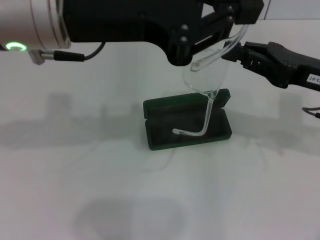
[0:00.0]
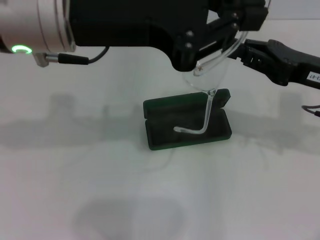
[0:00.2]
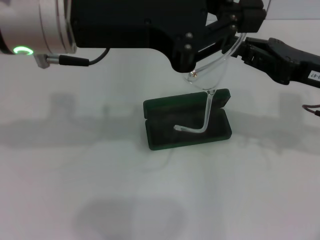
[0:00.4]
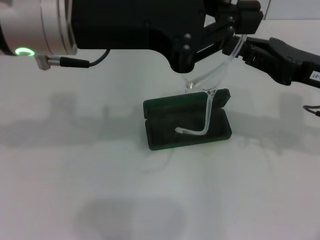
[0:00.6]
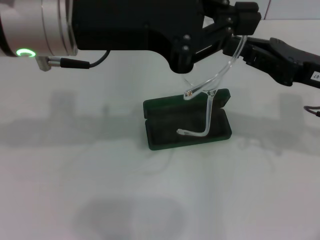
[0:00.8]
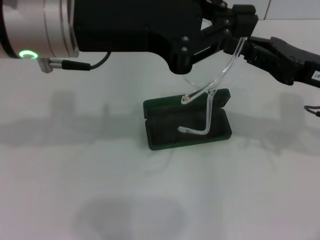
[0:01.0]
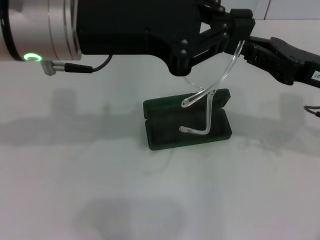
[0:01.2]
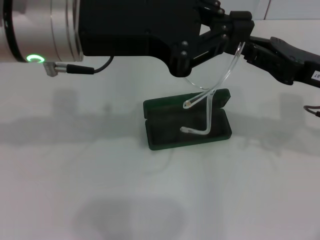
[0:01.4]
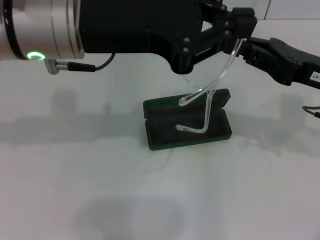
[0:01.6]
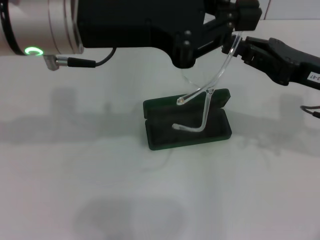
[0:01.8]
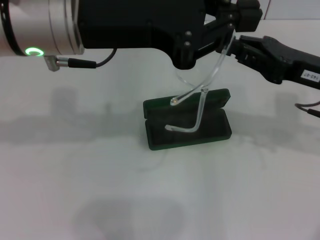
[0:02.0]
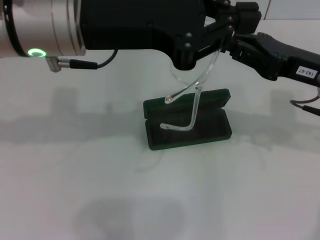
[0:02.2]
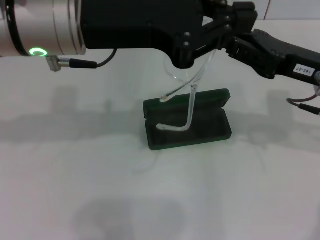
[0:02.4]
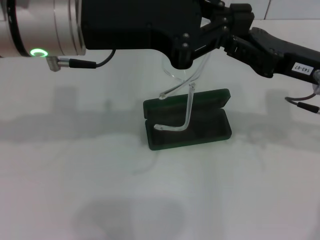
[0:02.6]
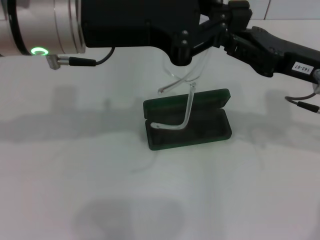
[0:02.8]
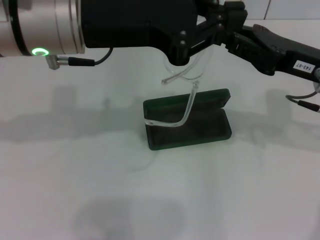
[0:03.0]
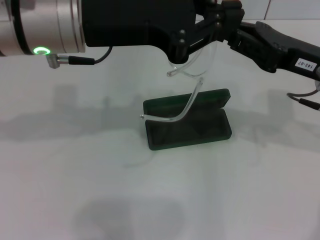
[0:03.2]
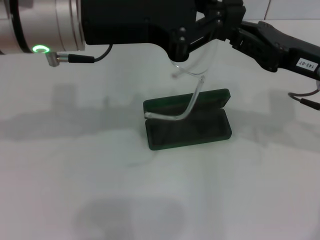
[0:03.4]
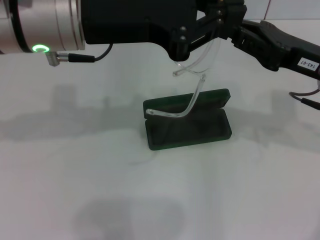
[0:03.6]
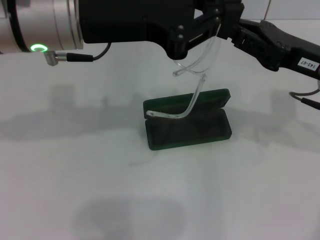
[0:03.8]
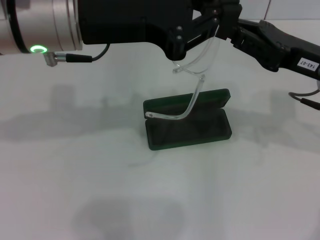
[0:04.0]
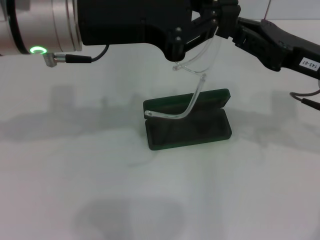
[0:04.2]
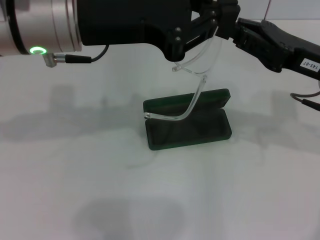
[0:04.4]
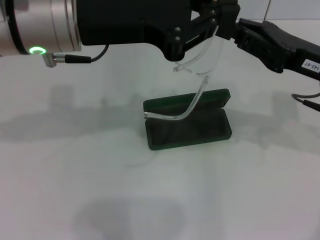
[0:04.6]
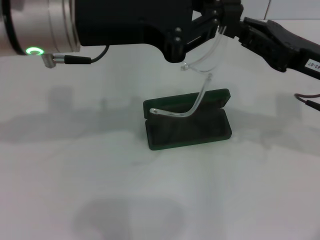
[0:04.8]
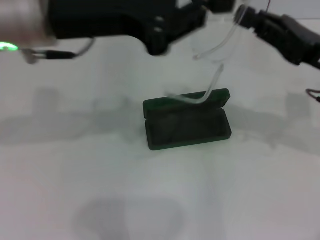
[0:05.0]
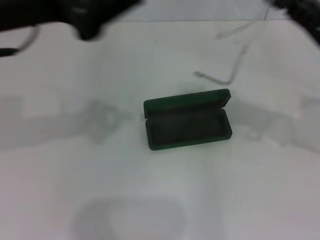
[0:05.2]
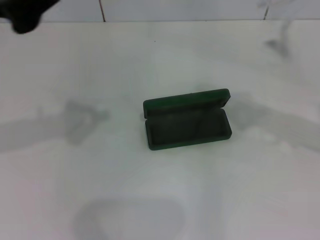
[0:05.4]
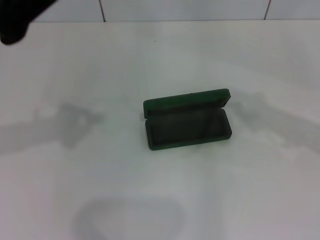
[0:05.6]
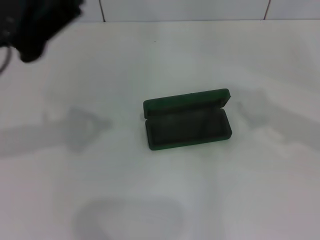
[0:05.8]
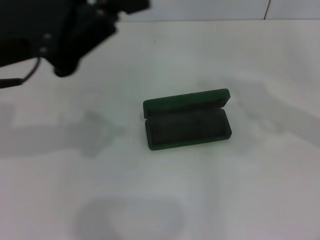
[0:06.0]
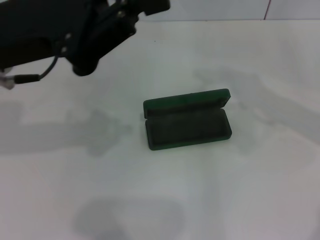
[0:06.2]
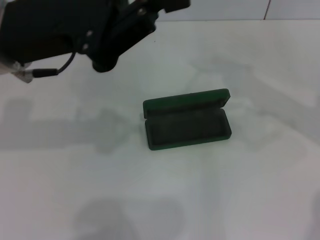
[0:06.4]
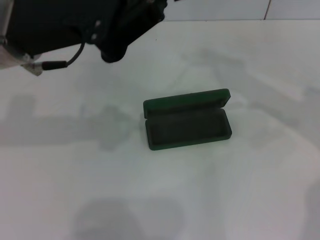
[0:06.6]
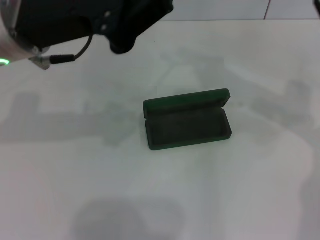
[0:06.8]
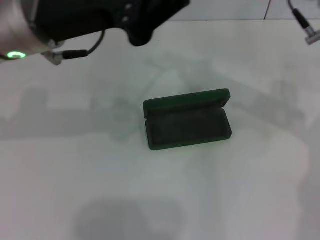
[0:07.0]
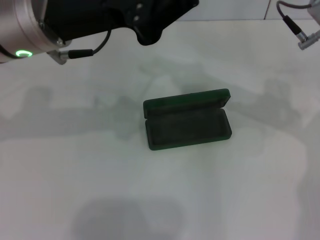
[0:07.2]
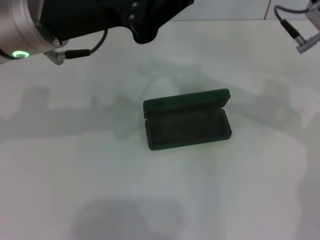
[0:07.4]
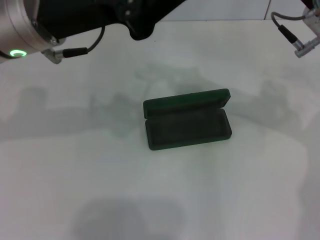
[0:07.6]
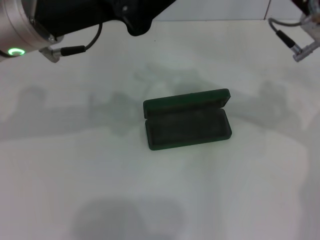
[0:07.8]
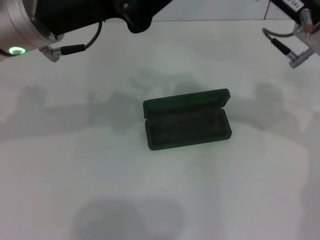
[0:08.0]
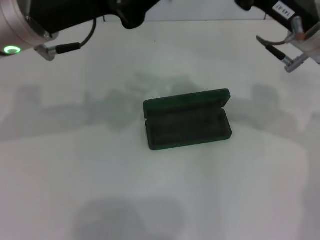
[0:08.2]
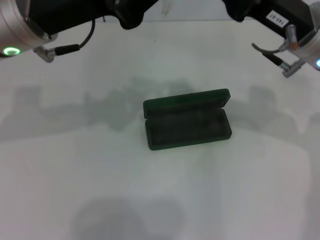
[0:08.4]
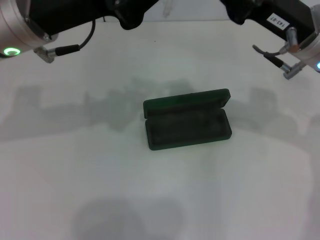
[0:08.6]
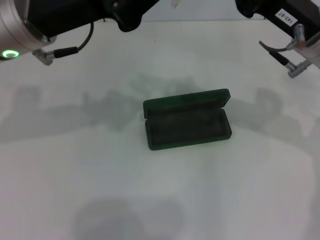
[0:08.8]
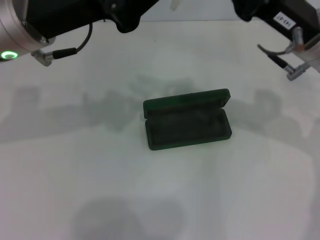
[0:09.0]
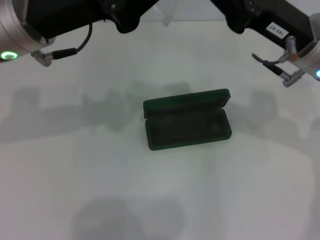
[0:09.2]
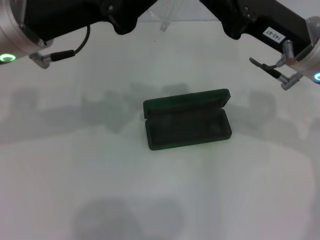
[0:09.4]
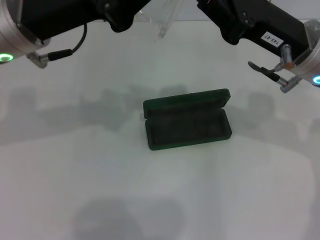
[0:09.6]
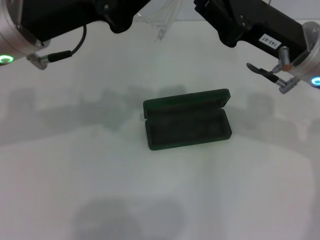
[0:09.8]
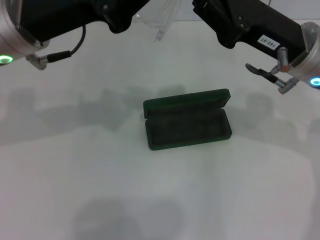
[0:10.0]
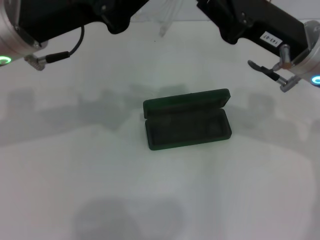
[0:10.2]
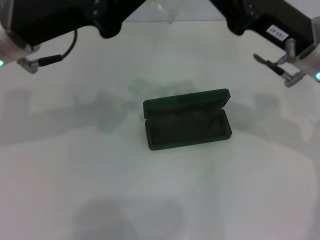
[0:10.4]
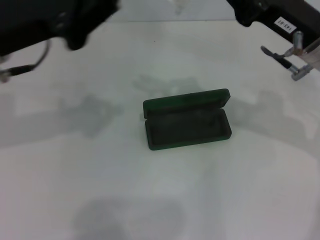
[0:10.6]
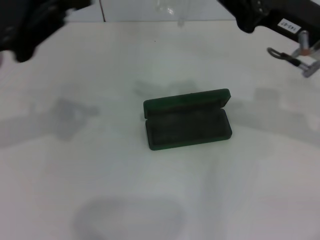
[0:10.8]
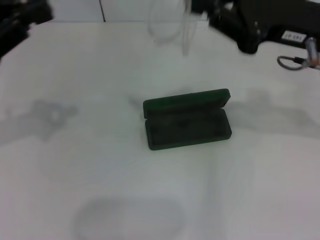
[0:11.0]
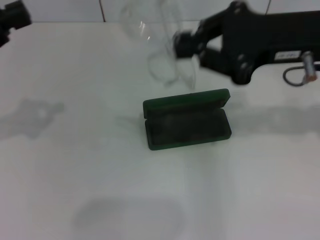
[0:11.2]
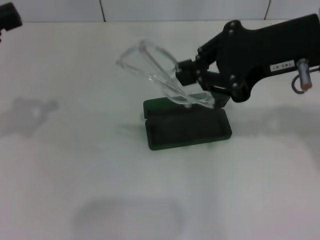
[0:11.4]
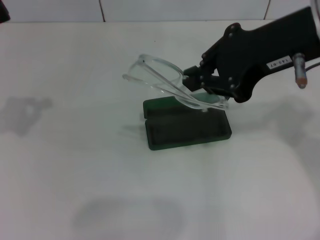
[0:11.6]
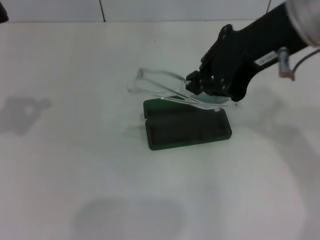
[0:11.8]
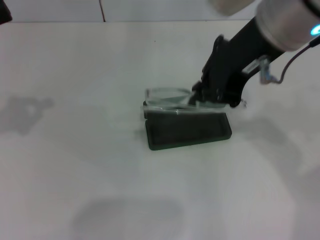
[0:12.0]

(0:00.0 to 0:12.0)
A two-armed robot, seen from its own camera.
Step, 0:00.0 - 0:10.2: Fold the frame with your left hand.
0:00.0 - 0:03.0: The grippers make only small movements.
0:03.0 - 0:04.4: Both grippers stay about where they are.
0:04.4 - 0:06.0: The left gripper goes approximately 5 cm to the left. The right gripper shifts some 5 cm to the right.
0:06.0 - 0:07.6: The left gripper heads to the right, covering some 5 cm. Meanwhile the right gripper heads to the left, covering some 10 cm.
0:07.6 - 0:10.4: The grippers stay close to where they were, moving slightly.
0:10.4 - 0:12.0: The right gripper shifts about 15 cm upward and to the left. Meanwhile the left gripper goes some 15 cm to the left.

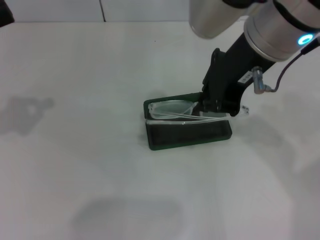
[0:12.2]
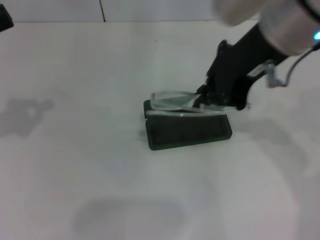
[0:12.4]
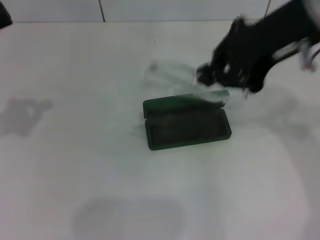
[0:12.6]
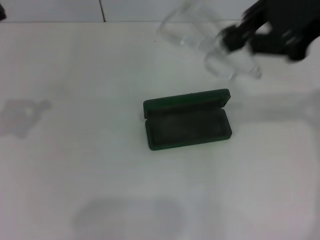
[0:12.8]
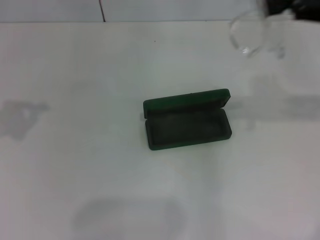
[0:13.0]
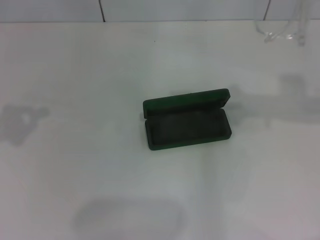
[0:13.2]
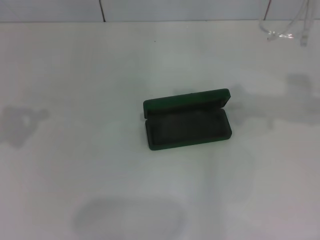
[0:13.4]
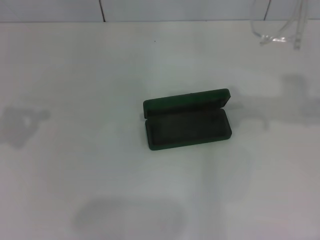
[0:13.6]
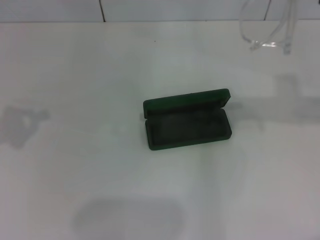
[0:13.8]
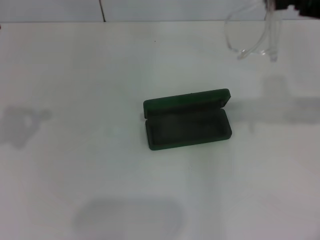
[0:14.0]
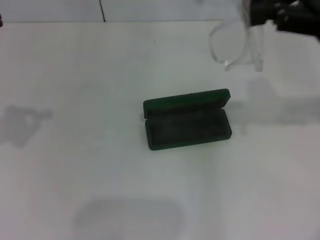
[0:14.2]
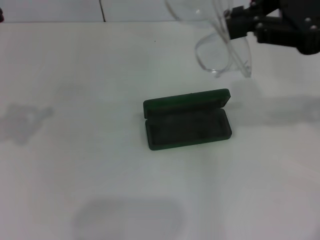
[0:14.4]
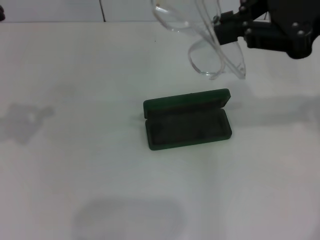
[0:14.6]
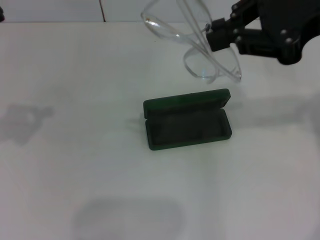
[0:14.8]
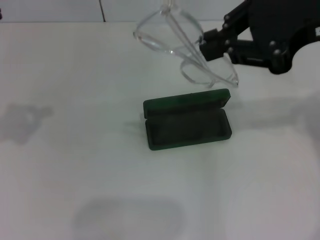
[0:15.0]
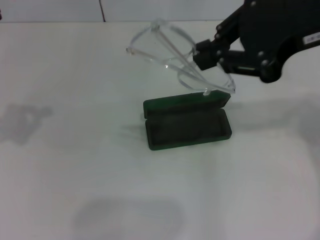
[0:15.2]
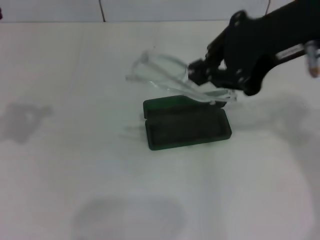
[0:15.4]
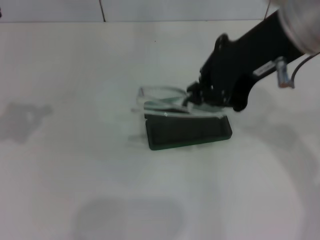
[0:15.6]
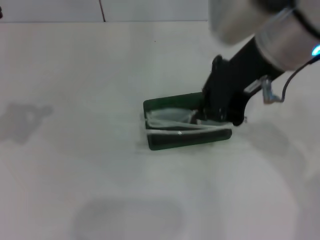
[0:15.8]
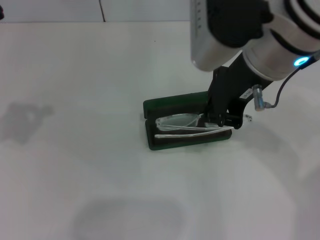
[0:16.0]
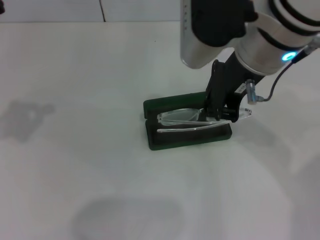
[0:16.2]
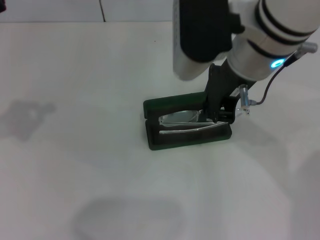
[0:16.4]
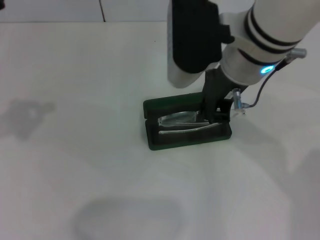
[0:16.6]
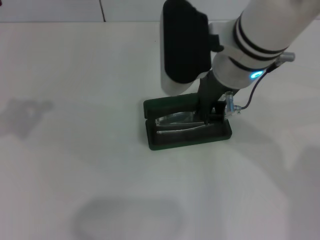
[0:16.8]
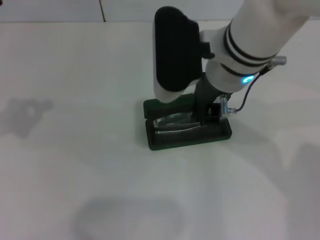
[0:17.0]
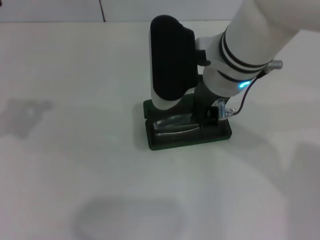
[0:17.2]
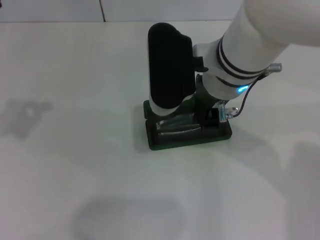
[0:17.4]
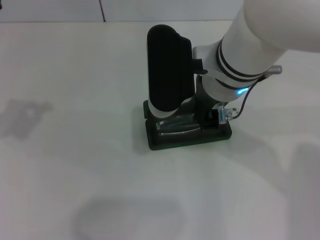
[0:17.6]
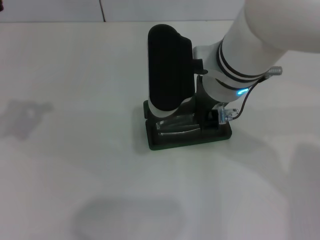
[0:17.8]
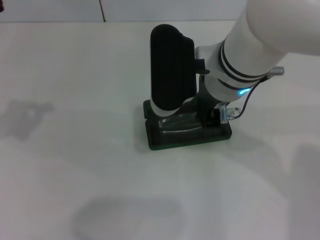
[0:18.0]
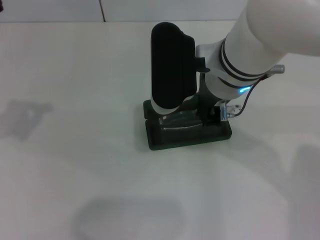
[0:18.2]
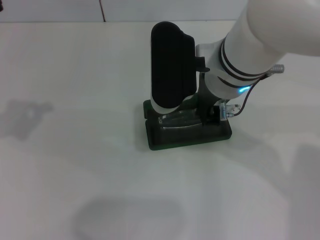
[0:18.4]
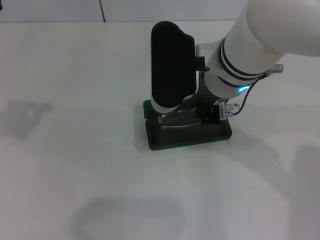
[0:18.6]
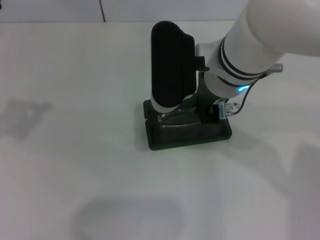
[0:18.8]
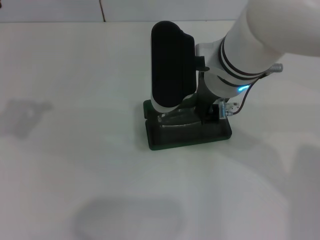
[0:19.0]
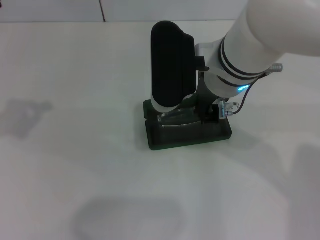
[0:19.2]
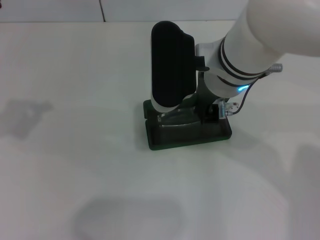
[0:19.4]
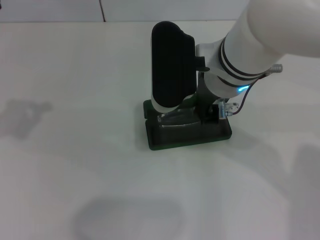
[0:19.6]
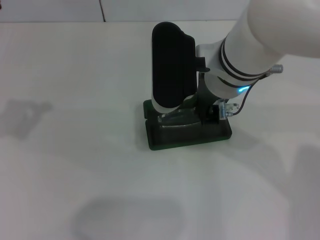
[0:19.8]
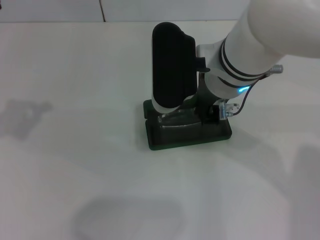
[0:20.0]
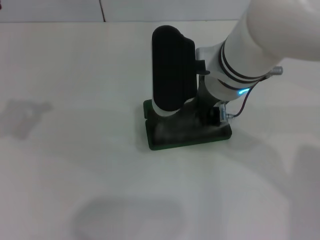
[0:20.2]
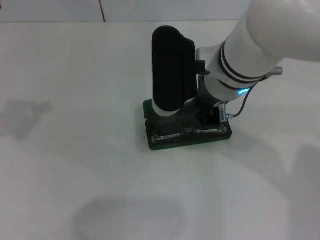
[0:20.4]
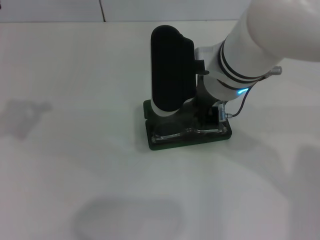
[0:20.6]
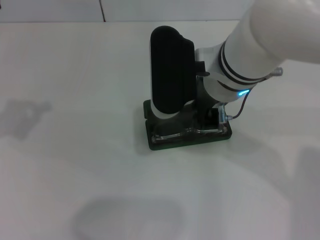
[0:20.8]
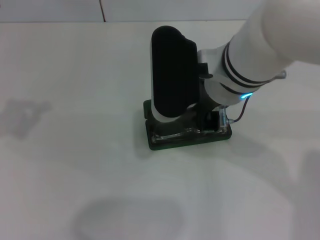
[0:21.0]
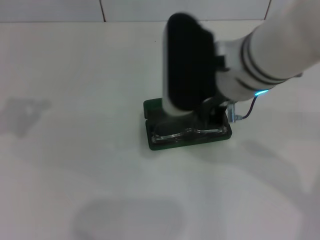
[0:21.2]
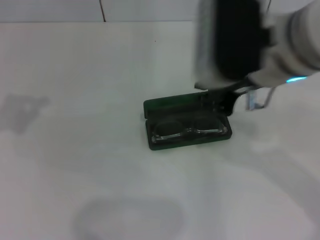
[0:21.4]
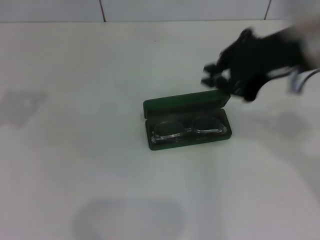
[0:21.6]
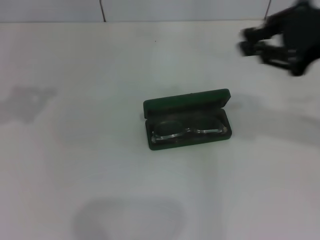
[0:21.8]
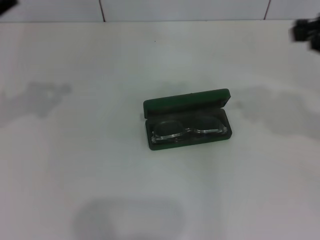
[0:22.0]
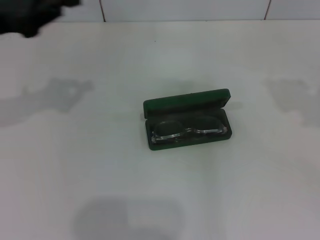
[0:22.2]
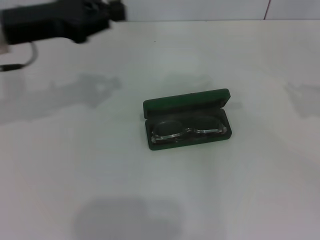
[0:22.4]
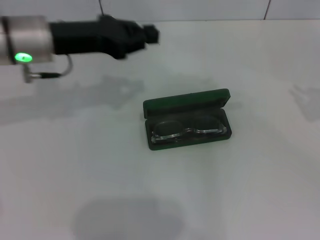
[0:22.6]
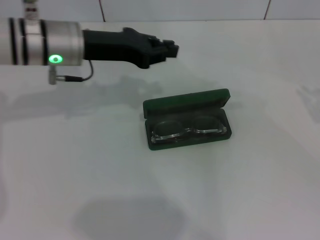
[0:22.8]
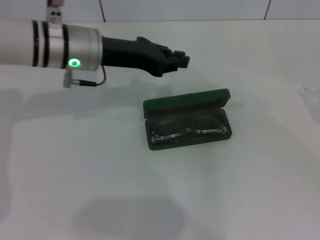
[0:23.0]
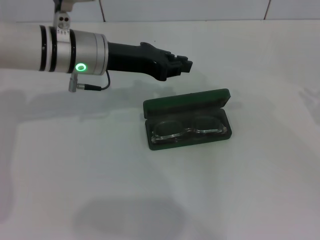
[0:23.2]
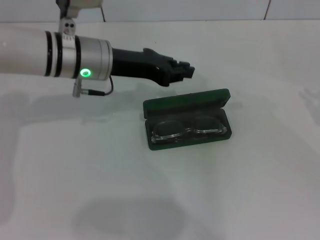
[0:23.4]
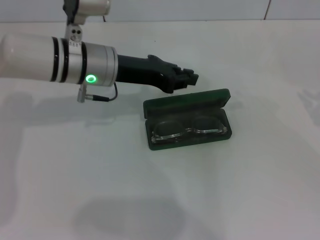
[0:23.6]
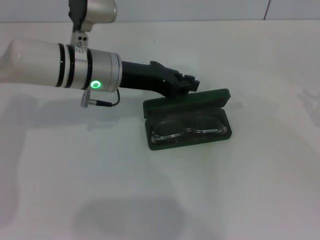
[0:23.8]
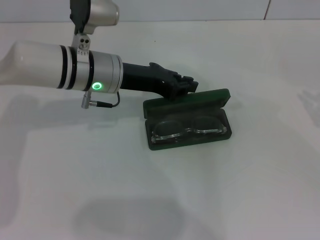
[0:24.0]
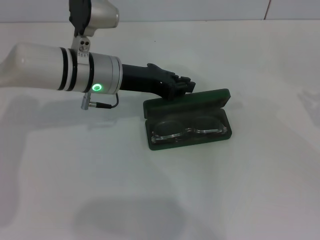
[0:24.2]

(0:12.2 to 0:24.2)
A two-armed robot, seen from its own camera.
Step, 0:12.2 - 0:20.2: Put the glasses into the case with your right hand.
0:12.2 - 0:13.8: The right gripper heads to the right, covering about 20 cm.
0:13.8 - 0:15.2: The right gripper goes roughly 10 cm to the left.
0:15.2 - 0:16.6: The right gripper travels to the left and downward by some 15 cm.
0:16.6 - 0:18.2: There are only small adjustments of the grippers.
0:18.2 - 0:19.8: The two grippers keep their place.
0:19.8 - 0:21.2: The grippers move only a little.
0:21.2 - 0:22.6: The right gripper shifts approximately 30 cm to the right, while the left gripper heads to the right and forward, covering approximately 20 cm.
0:22.6 - 0:24.2: The left gripper shifts about 10 cm to the right and downward.
